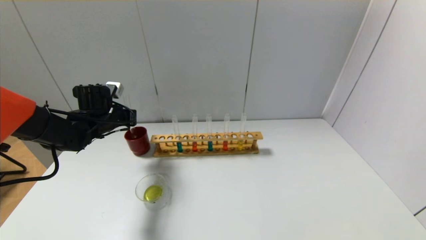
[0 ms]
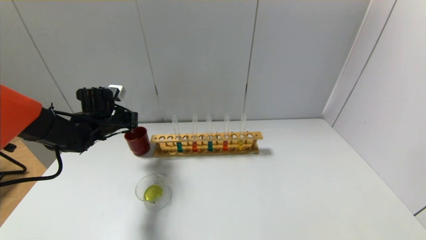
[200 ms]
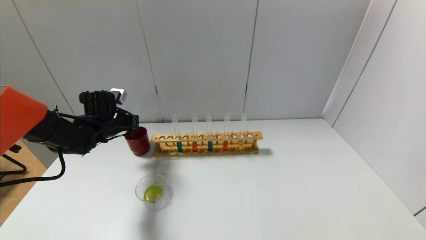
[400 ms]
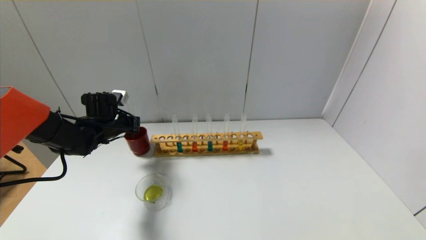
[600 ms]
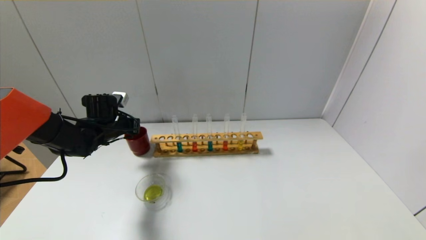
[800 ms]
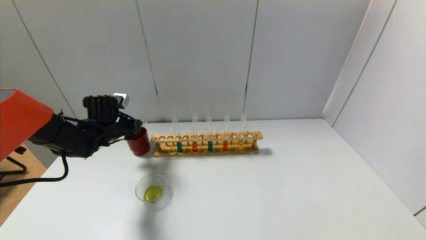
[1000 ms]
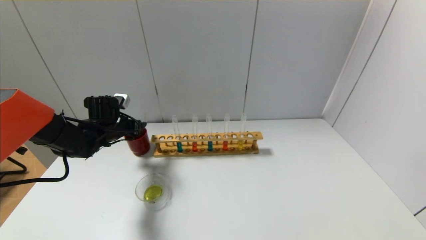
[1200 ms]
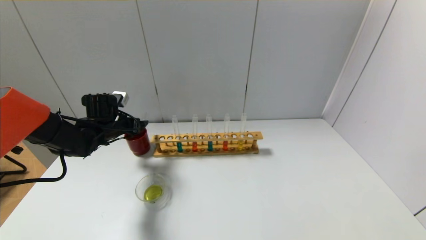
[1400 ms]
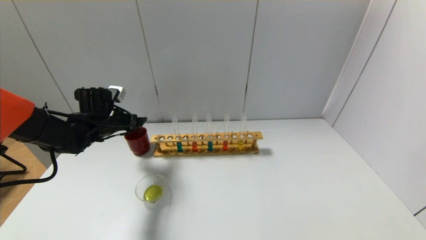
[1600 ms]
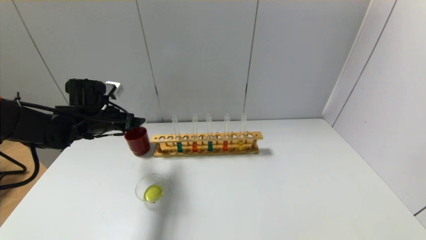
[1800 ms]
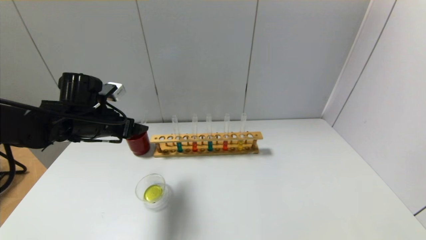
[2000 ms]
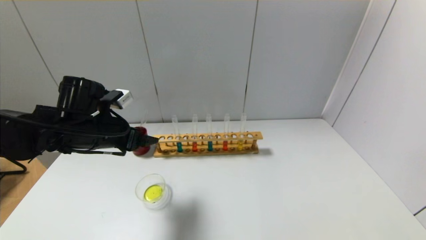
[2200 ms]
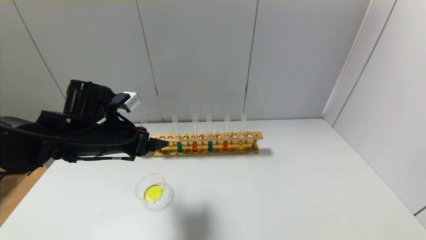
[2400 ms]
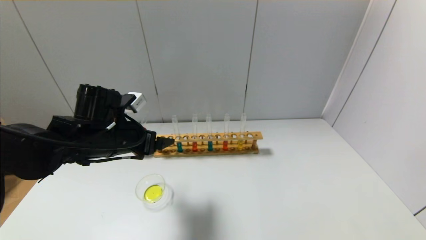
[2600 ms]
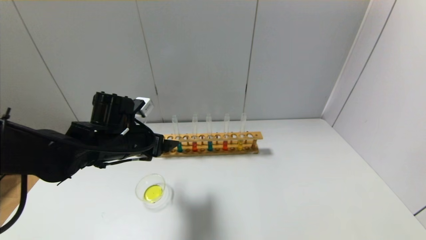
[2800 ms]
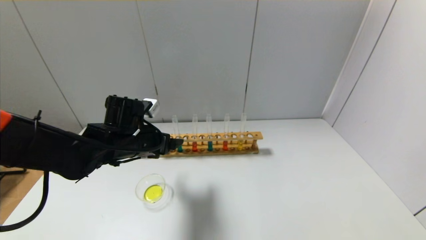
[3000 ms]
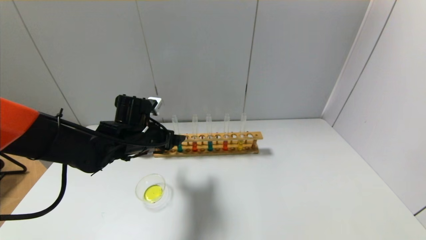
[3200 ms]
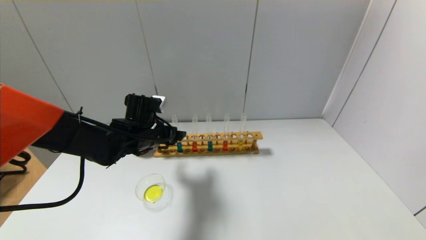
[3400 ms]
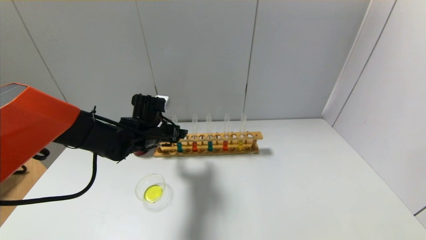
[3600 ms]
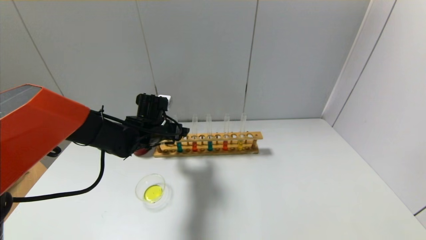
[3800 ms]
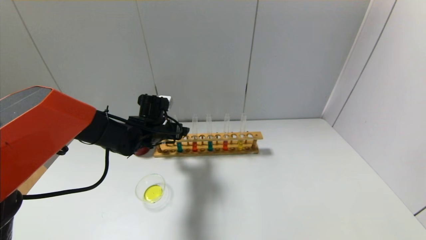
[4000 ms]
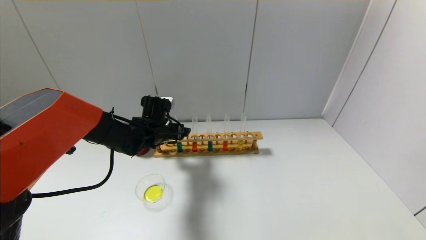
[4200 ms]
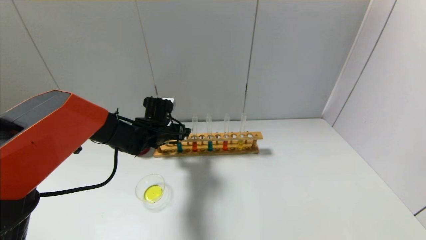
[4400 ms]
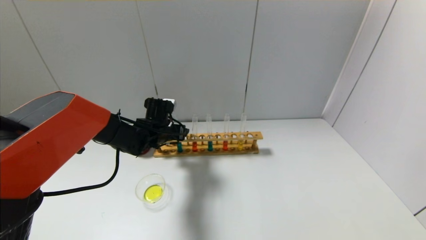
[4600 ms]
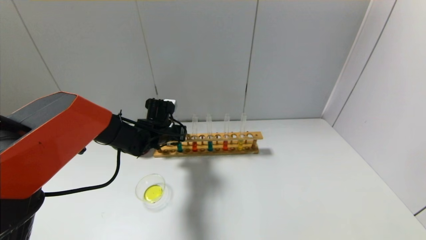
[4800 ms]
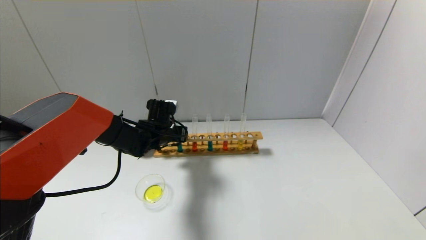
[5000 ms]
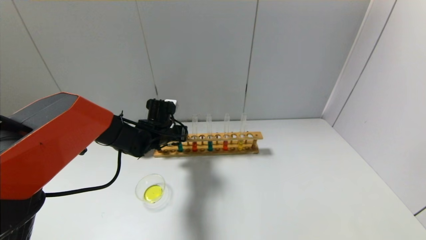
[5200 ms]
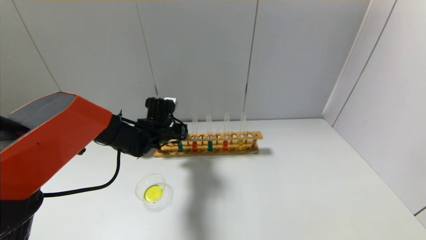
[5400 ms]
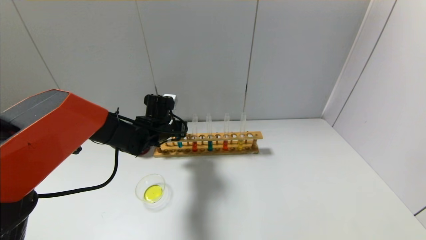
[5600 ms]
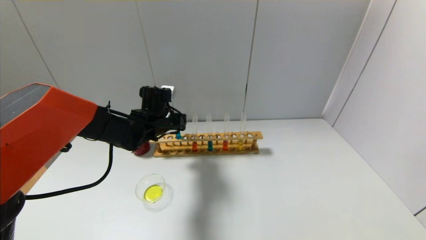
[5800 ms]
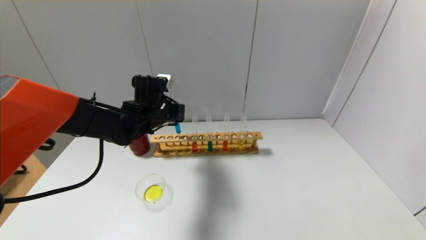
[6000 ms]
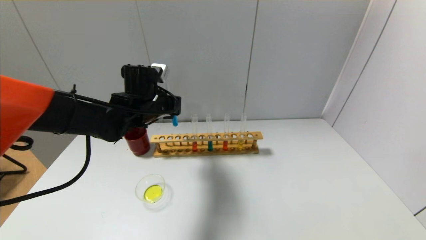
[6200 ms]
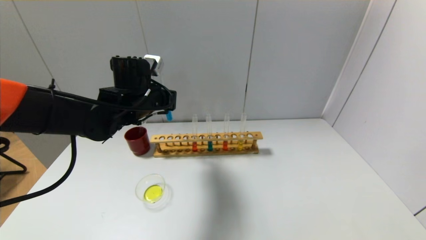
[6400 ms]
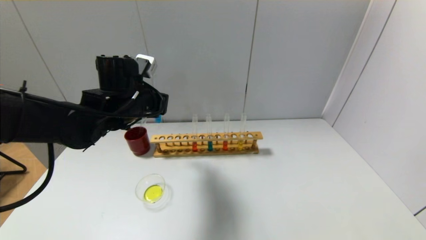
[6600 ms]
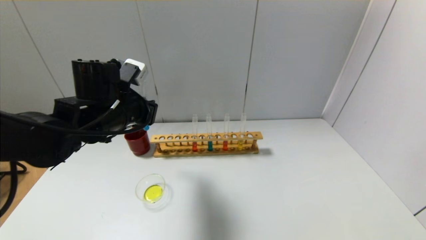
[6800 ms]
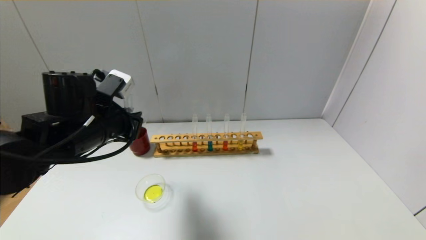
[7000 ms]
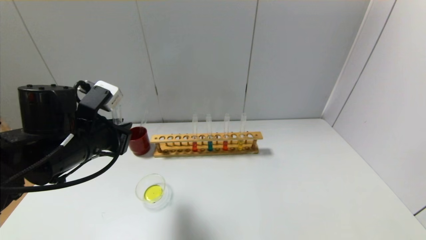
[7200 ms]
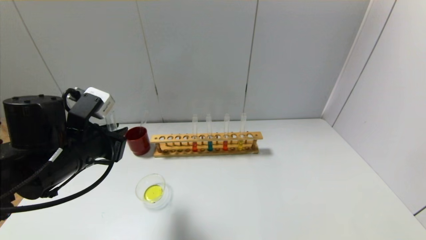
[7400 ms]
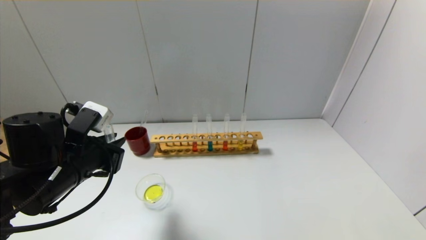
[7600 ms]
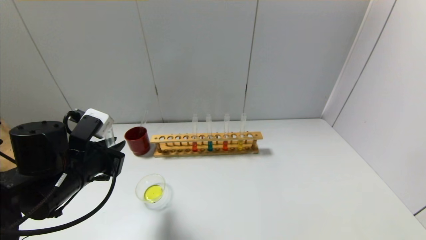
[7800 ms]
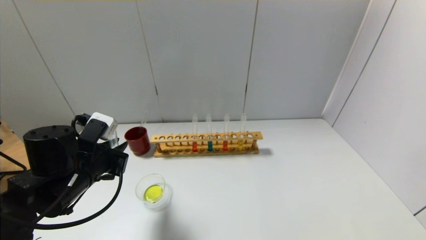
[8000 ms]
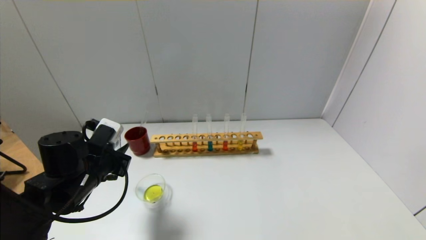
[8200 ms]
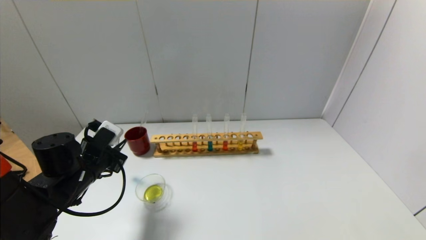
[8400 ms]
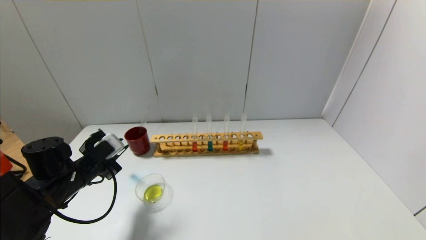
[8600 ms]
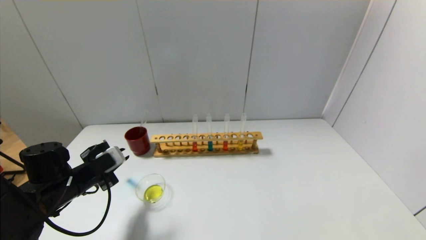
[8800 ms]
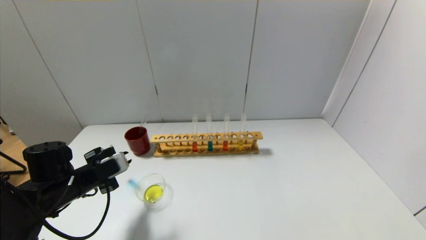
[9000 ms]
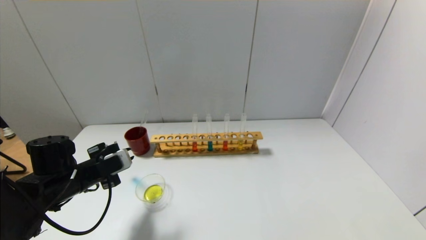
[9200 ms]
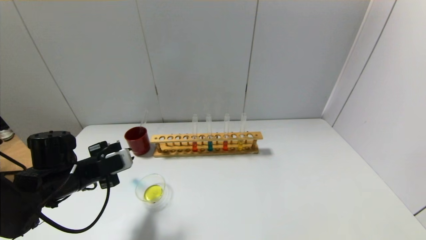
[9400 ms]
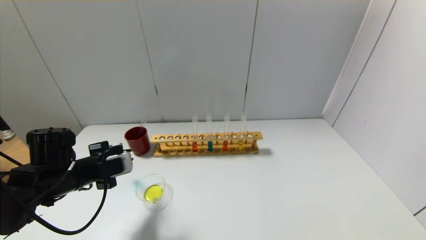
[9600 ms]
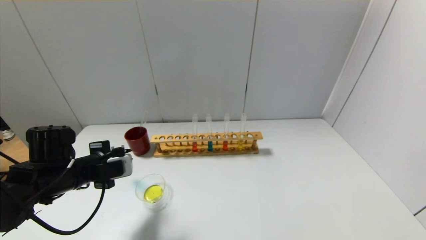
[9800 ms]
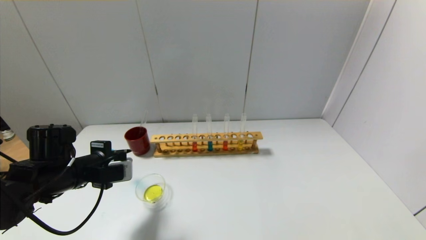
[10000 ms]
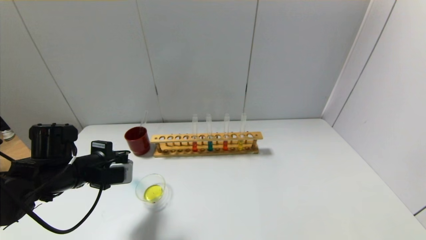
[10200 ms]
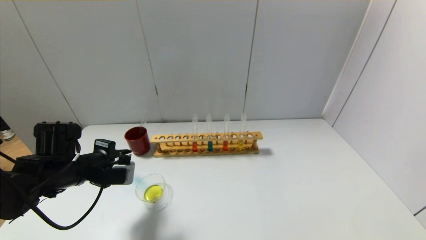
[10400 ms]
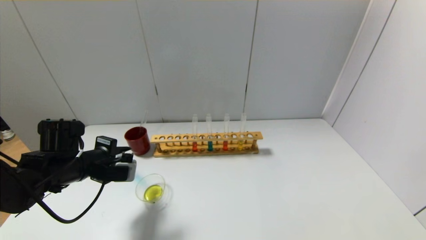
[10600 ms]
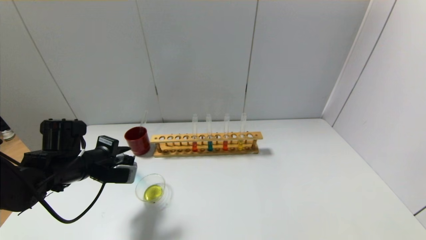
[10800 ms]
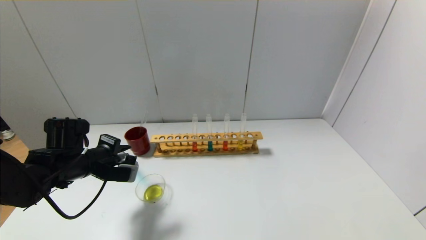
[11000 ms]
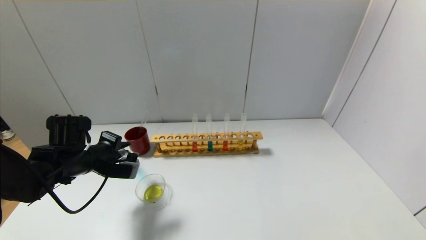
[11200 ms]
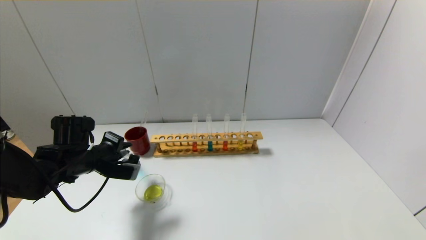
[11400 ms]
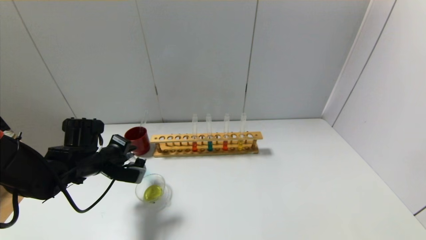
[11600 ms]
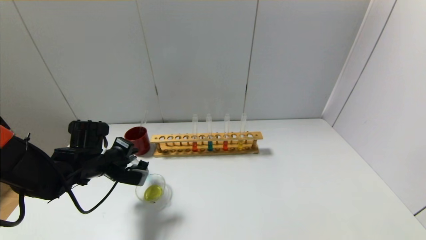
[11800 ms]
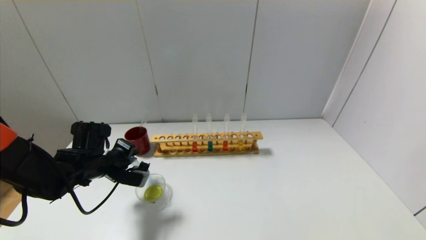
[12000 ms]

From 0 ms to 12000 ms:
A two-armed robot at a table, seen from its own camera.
Step, from 1400 ms to 5200 ms: Grasp the blue reagent with the left gripper.
From 0 ms to 1600 ms: The left gripper opens up.
From 1600 ms to 3000 ms: The left gripper shifts about 15 cm to the right and backward.
From 3000 ms to 4400 ms: The left gripper goes approximately 10 cm forward.
From 4400 ms to 6000 ms: The left gripper moves upward, about 5 cm, and closes up.
From 6000 ms to 7600 ms: The left gripper heads backward and to the left, covering about 20 cm.
From 7600 ms to 9000 ms: The left gripper shifts approximately 10 cm downward and to the left.
From 10400 ms to 12000 ms: The left gripper moves about 5 cm.

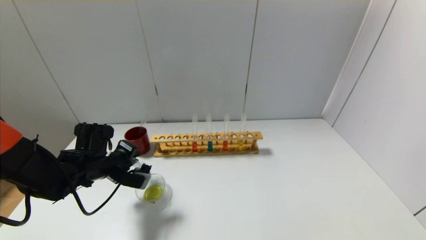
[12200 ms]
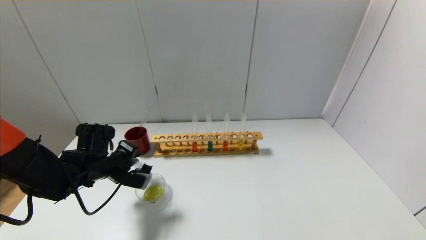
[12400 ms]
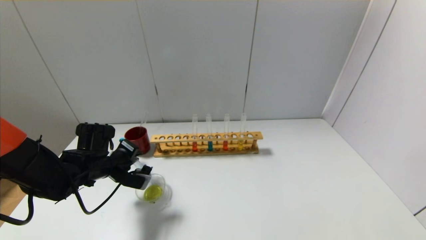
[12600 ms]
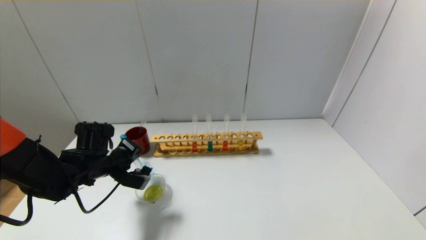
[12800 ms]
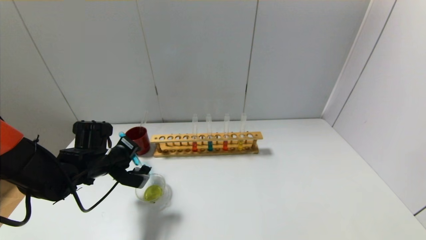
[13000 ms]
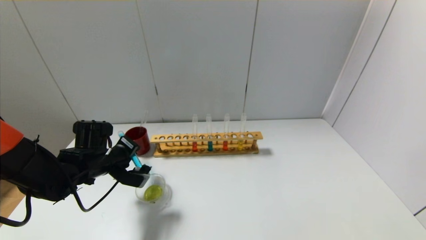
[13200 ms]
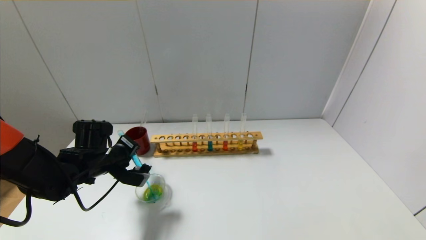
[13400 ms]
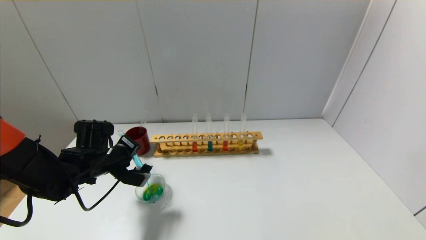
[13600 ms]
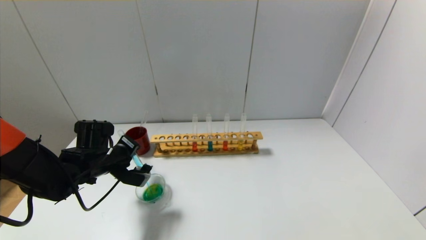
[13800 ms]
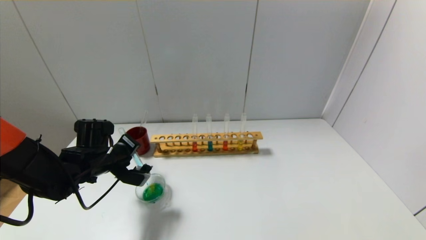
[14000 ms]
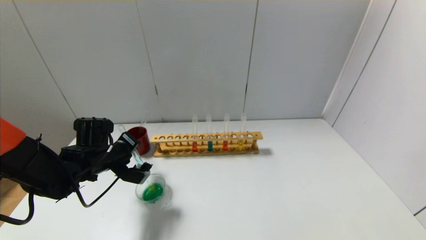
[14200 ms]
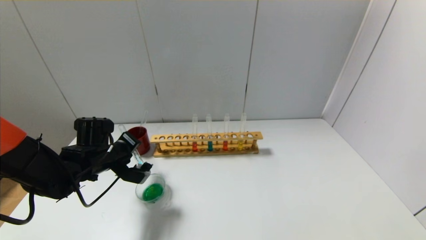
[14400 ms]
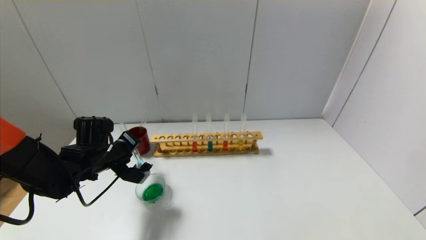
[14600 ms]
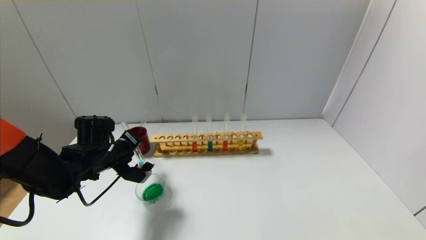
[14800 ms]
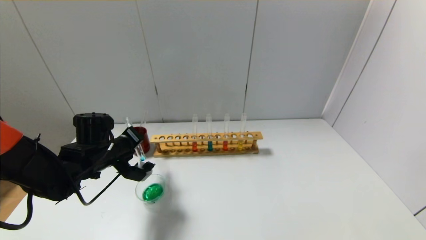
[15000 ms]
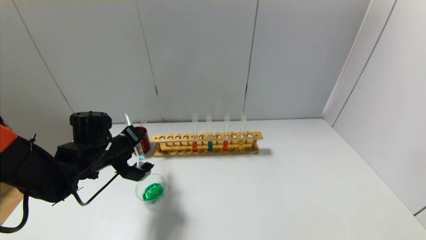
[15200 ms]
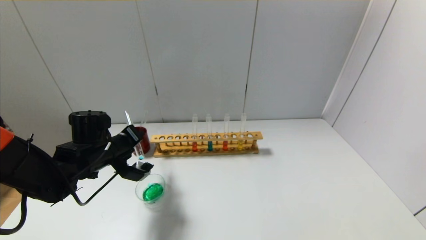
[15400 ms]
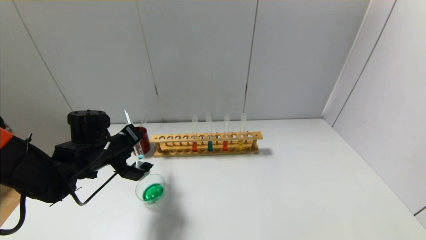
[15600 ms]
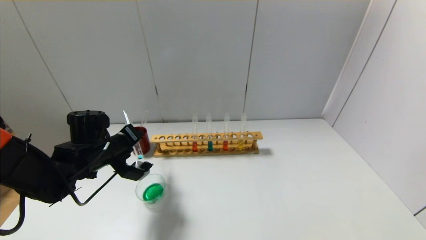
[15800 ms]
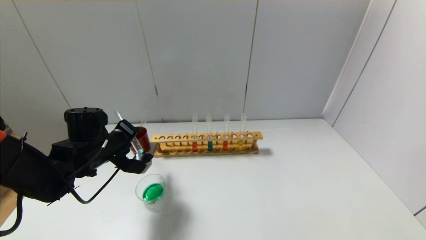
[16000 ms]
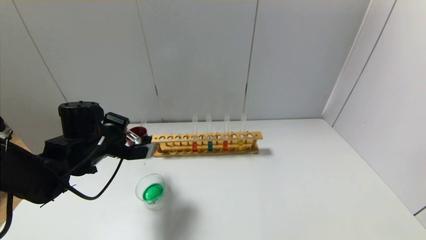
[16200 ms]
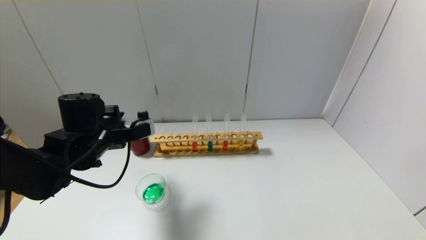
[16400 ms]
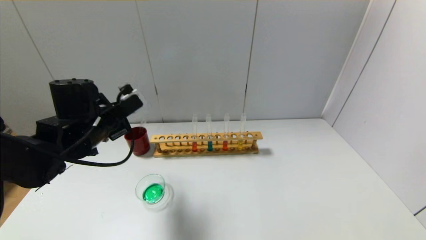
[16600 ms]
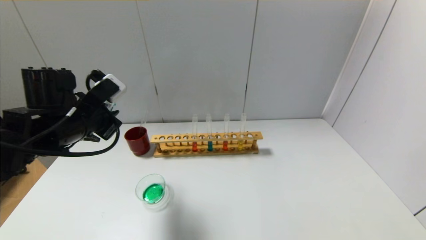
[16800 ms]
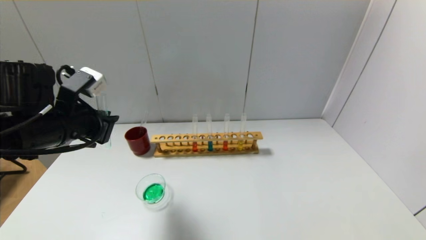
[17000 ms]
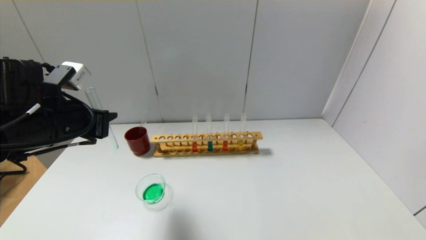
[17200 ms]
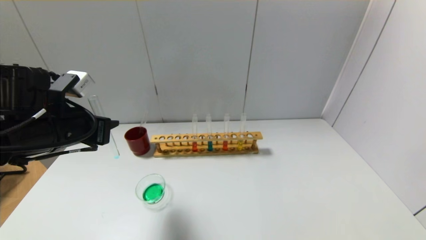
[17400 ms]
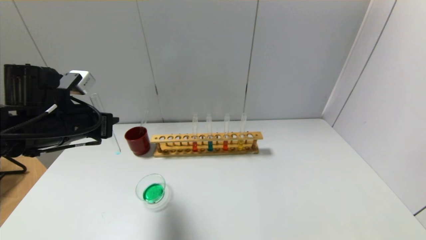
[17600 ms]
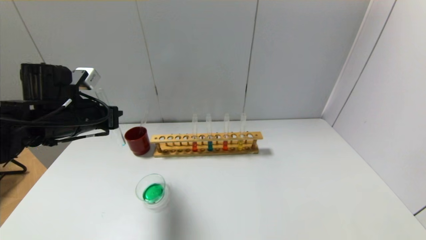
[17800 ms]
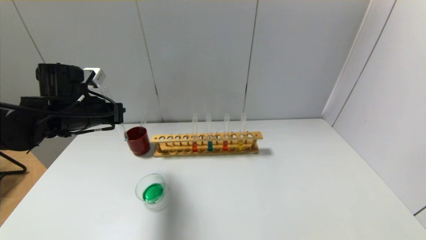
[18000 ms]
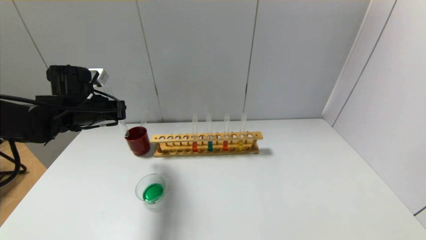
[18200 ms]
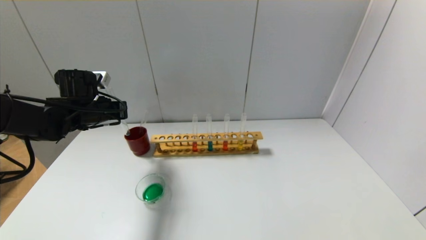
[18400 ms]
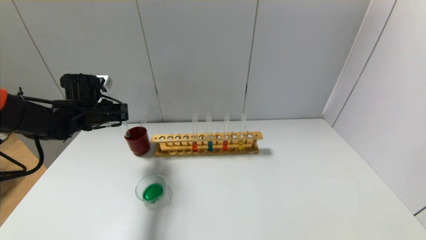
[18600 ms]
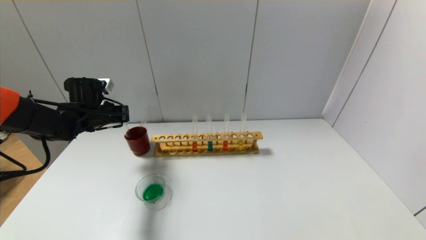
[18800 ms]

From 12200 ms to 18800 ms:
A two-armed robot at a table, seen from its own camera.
Step, from 12200 ms to 16000 ms: Pour the blue reagent into the graduated cylinder with the left gripper.
From 12200 ms to 13800 ms: There are only small adjustments of the grippers.
From 13800 ms to 15400 ms: There are only small adjustments of the grippers.
From 15400 ms to 17200 ms: The left gripper heads upward and backward, covering about 15 cm.
From 17200 ms to 18800 ms: The left gripper heads forward and downward, covering some 20 cm.
